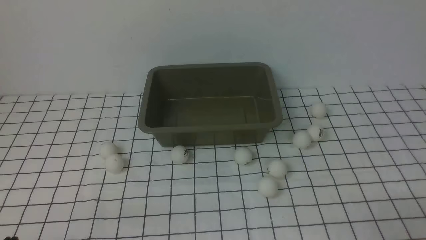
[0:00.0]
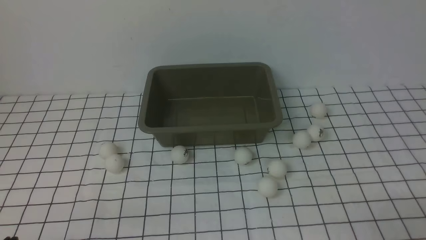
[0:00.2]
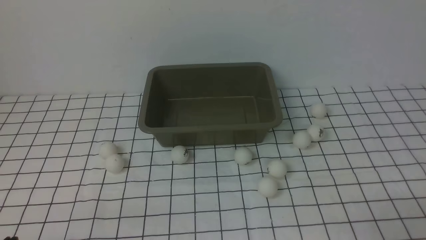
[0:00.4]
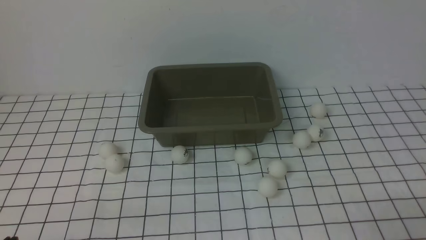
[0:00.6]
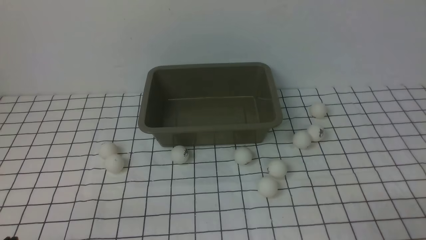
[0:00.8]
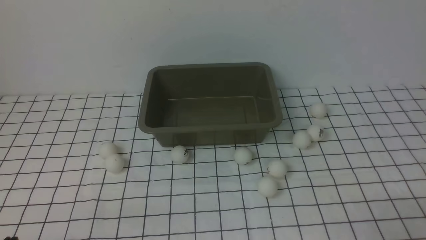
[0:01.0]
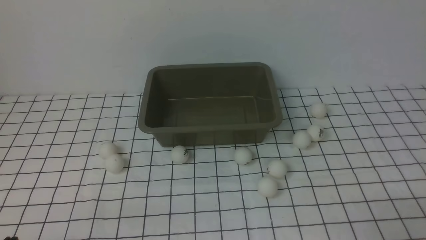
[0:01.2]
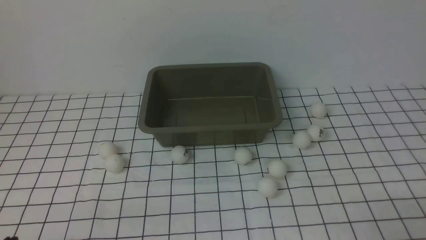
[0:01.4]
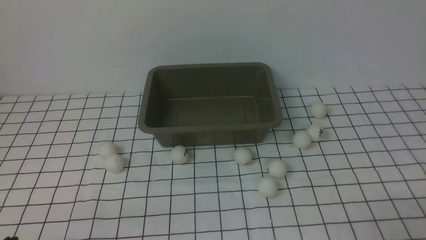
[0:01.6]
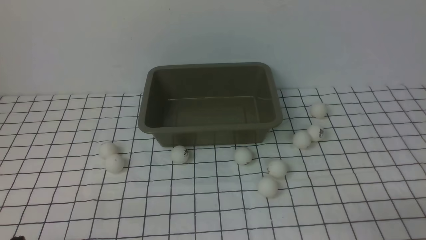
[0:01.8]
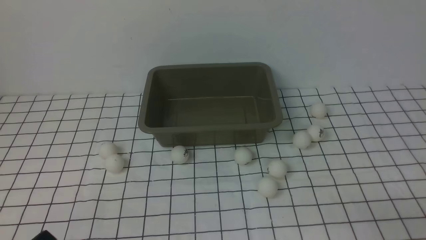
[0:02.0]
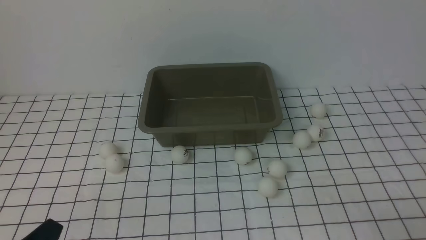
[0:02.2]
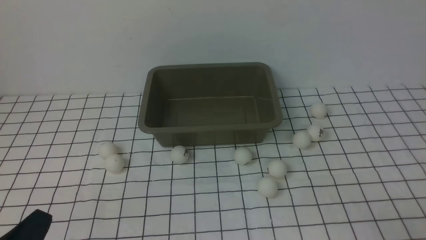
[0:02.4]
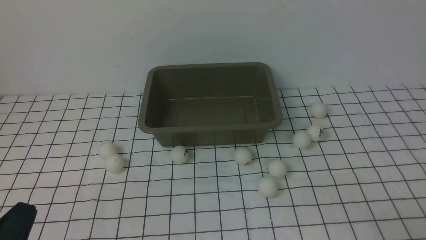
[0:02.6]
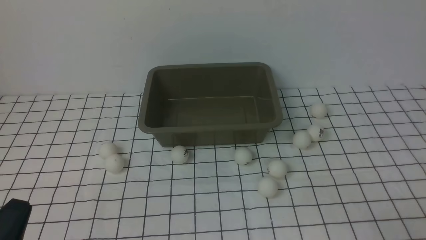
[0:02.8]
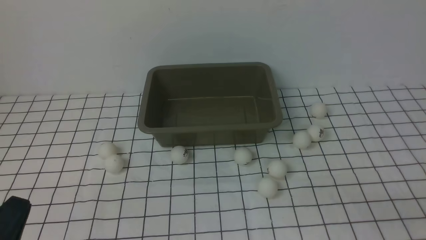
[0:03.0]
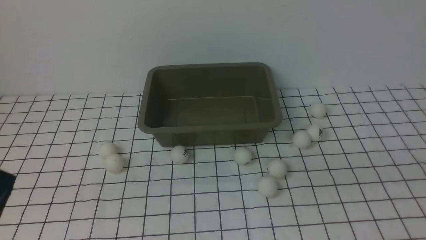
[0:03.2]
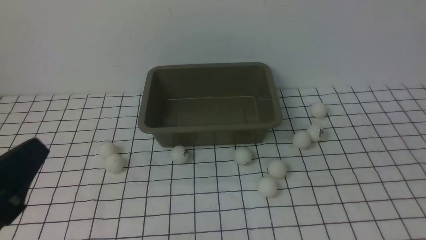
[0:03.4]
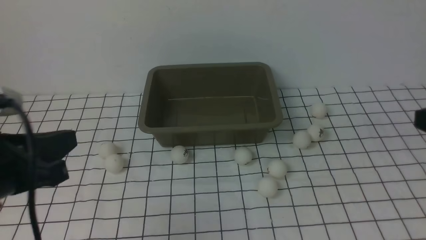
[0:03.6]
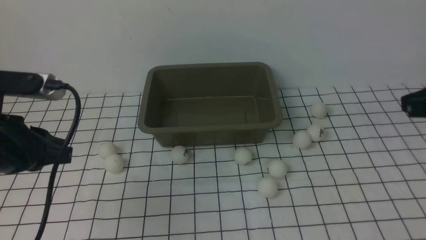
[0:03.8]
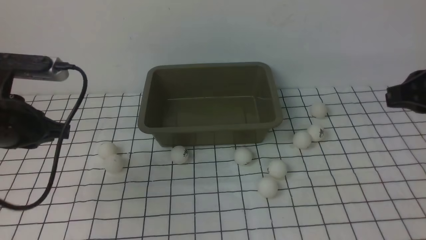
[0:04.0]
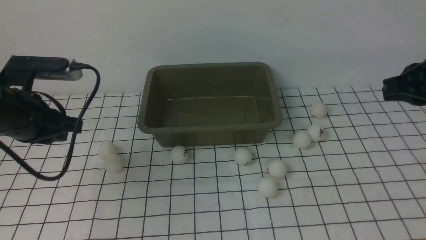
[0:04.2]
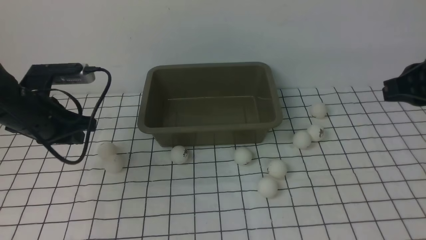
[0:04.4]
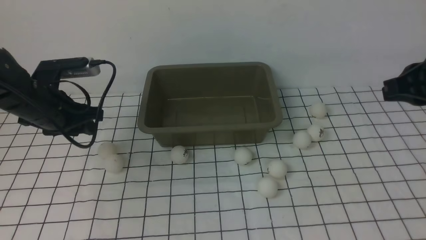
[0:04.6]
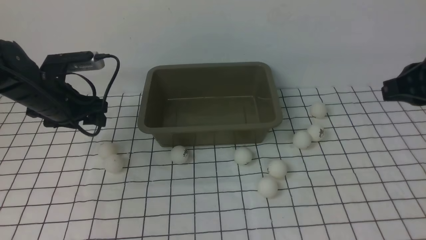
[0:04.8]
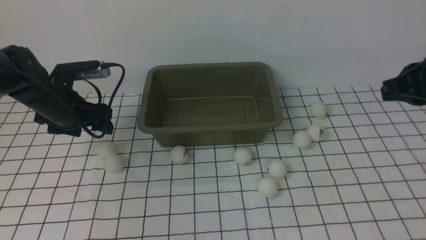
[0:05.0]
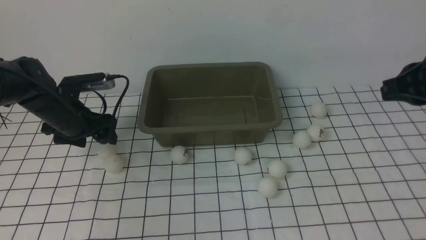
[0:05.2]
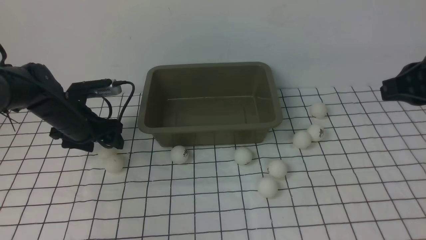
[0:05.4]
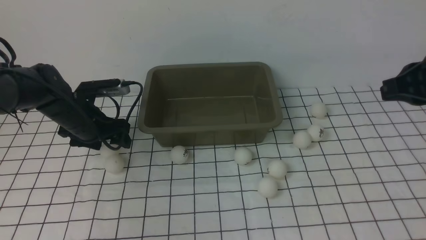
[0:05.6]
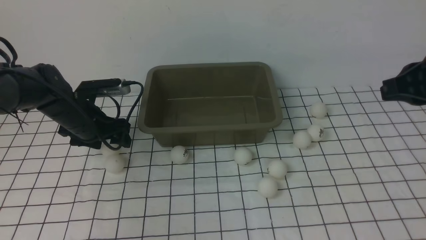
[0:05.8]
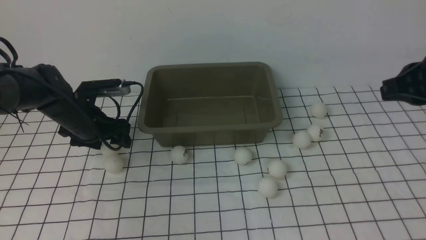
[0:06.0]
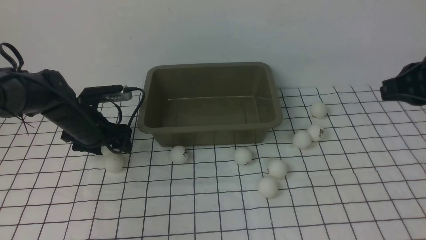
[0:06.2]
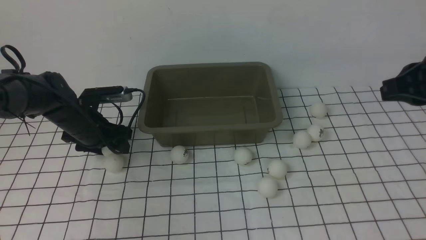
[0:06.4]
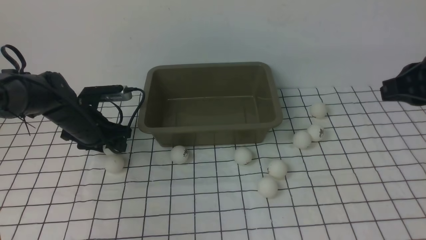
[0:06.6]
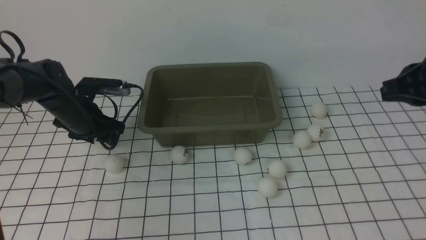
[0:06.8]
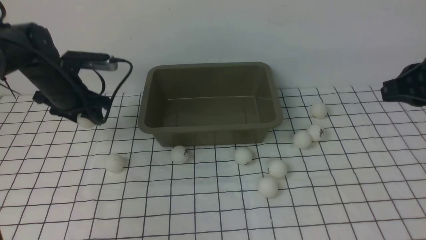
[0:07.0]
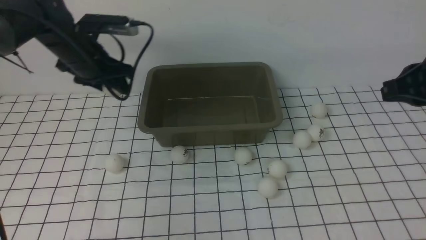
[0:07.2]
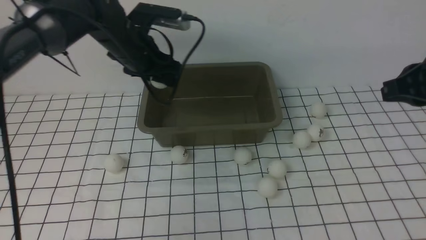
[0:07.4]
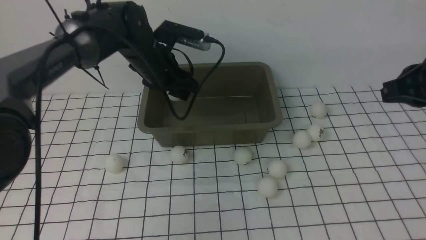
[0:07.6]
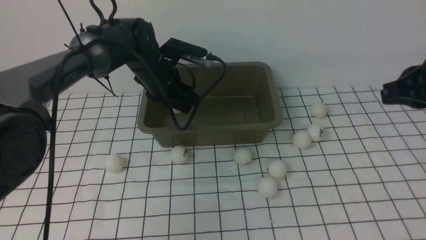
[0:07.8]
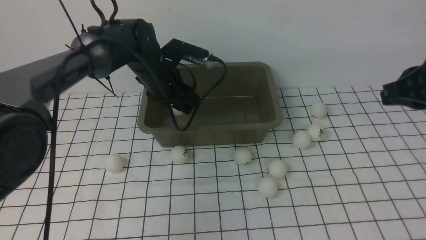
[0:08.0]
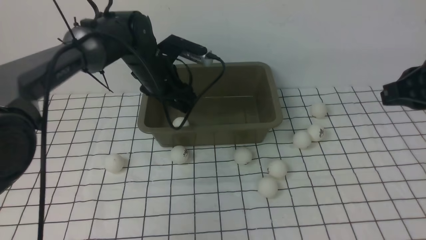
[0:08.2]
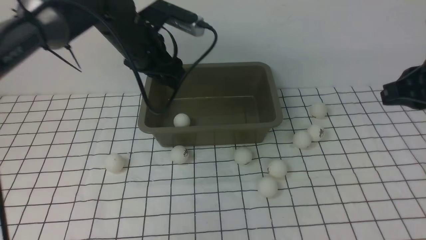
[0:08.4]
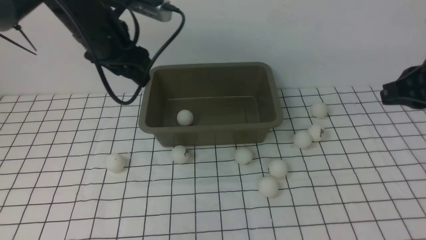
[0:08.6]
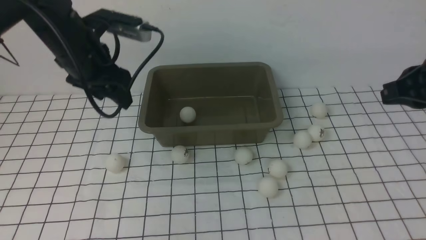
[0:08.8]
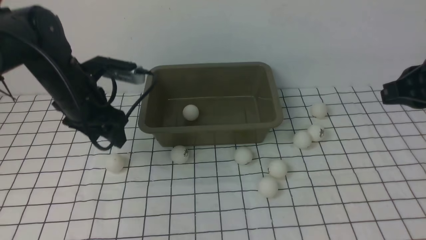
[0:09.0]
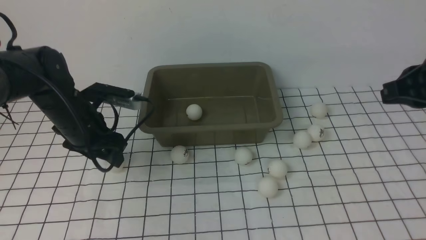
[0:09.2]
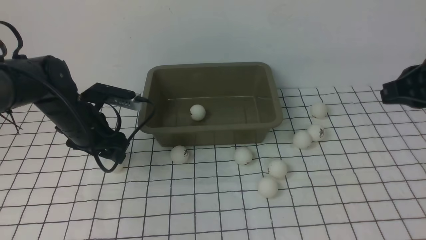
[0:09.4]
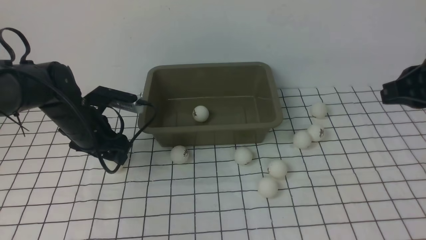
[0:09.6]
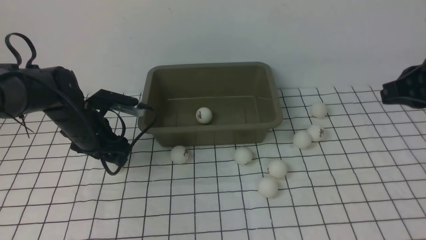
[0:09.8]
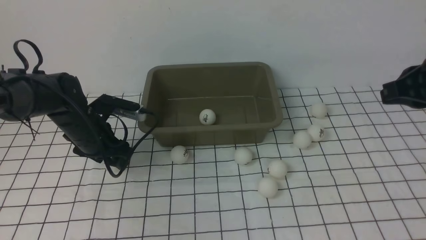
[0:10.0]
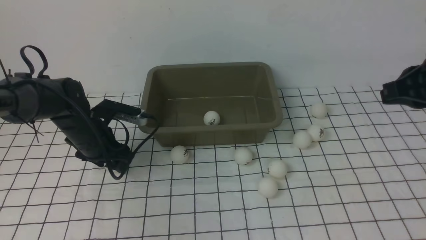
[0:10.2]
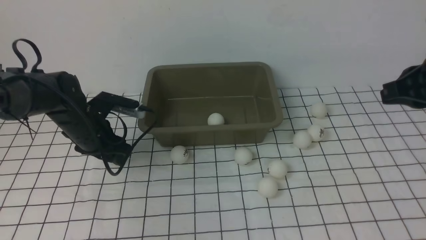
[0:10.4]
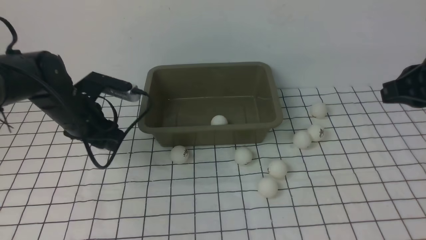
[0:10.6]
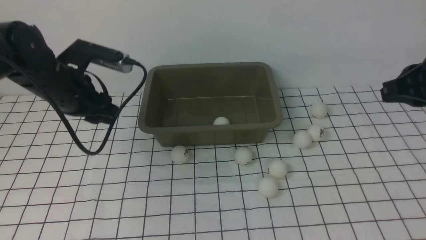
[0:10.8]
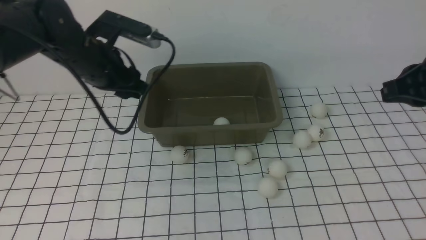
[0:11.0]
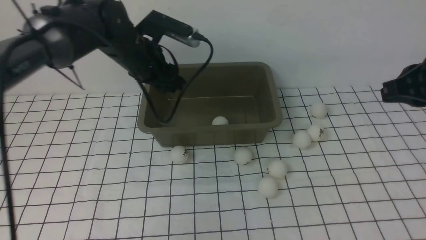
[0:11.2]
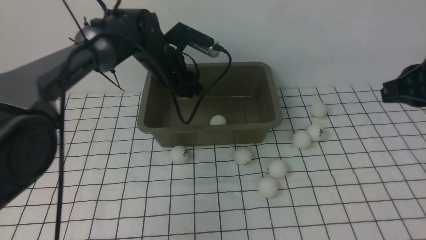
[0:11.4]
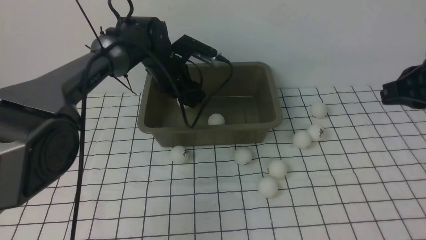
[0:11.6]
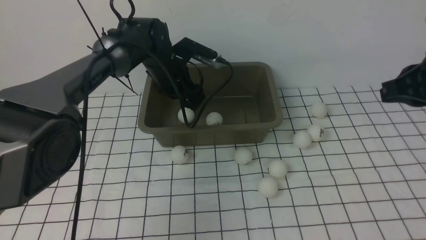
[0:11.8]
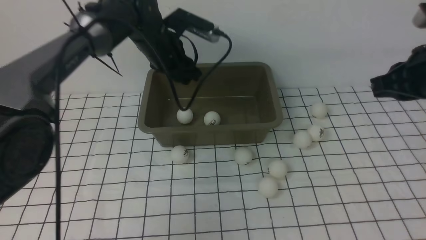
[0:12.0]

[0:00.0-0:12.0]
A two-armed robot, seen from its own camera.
Step, 0:00.0 to 0:07.0: use the left arm to clamp the table tennis ball closest to it.
Step, 0:07.2 to 0:08.2: use the left arm to put the table tennis ball into the box.
Step, 0:08.4 to 0:10.6: use the left arm to clamp the table tennis ball closest to it.
Step, 0:10.8 to 0:11.8: use the left arm to put the table tennis ball into the box.
0:00.0 to 0:01.6: Both grippers stay about where they are.
0:01.6 to 0:03.0: The left gripper travels upward by about 5 cm.
0:03.0 to 0:04.4: The left gripper travels forward by about 25 cm. The right gripper goes roughly 25 cm forward and upward.
0:04.4 to 0:06.0: The left gripper heads downward and forward, covering some 15 cm, and opens its fingers.
0:06.0 to 0:07.6: The left gripper heads to the right and upward, covering roughly 15 cm, and closes.
0:07.6 to 0:09.0: The left gripper goes approximately 15 cm to the left and backward.
0:10.4 to 0:12.0: The right gripper goes roughly 10 cm forward, while the left gripper goes up and down, approximately 15 cm each way, reversing 2 times, and closes its fingers.

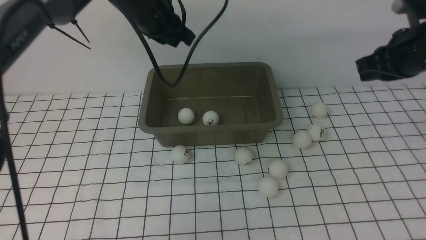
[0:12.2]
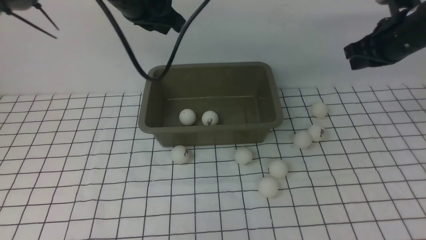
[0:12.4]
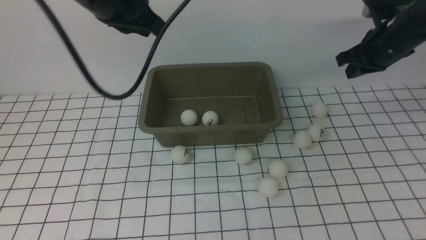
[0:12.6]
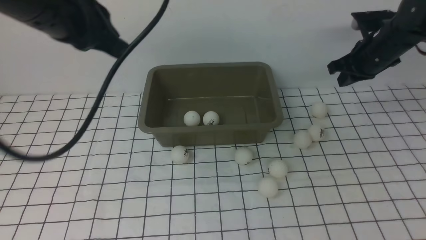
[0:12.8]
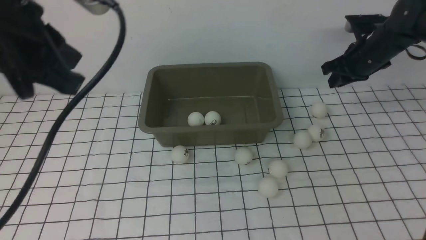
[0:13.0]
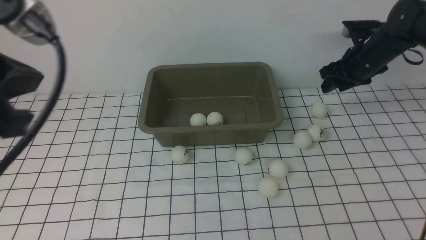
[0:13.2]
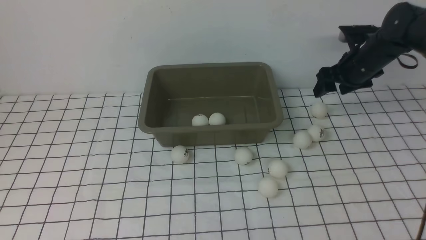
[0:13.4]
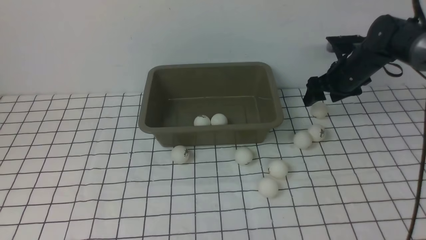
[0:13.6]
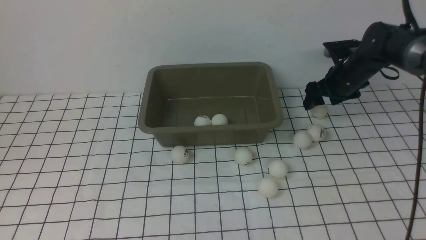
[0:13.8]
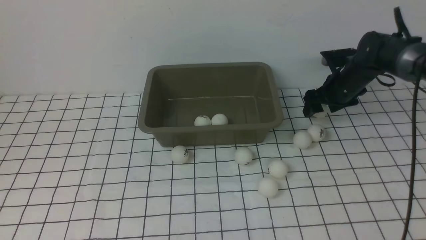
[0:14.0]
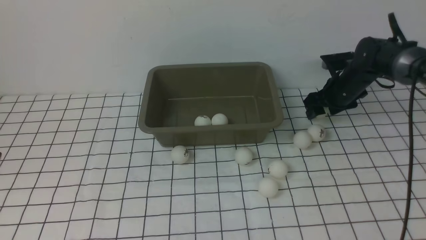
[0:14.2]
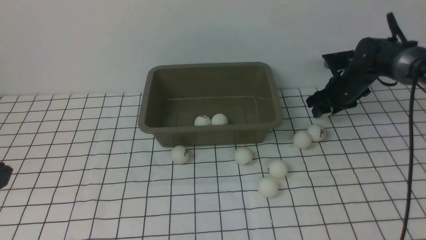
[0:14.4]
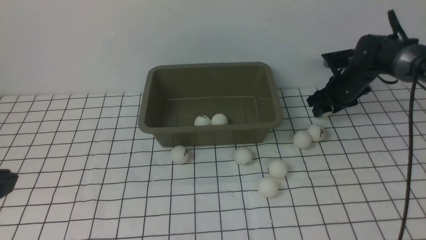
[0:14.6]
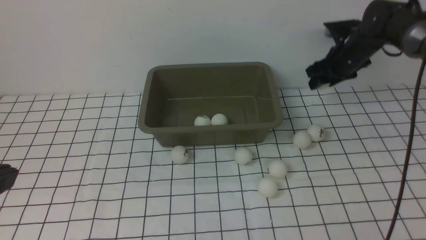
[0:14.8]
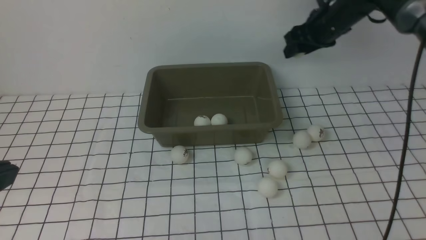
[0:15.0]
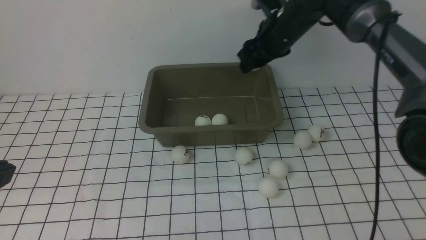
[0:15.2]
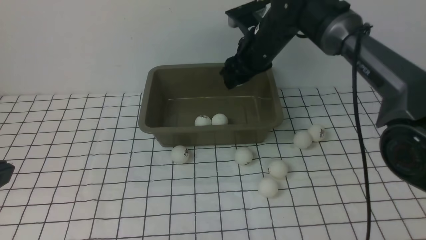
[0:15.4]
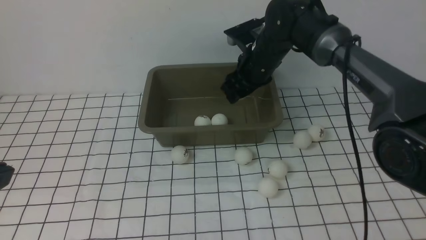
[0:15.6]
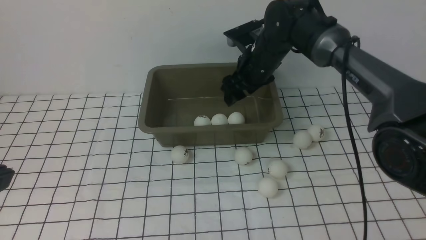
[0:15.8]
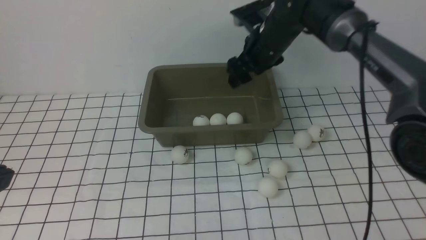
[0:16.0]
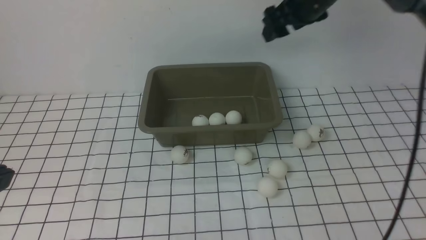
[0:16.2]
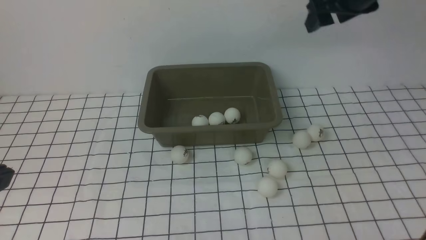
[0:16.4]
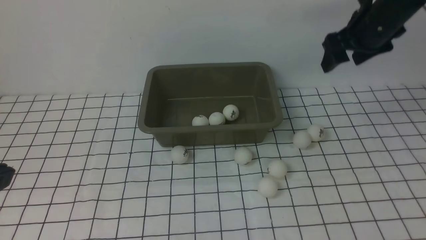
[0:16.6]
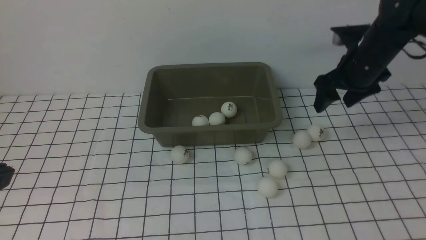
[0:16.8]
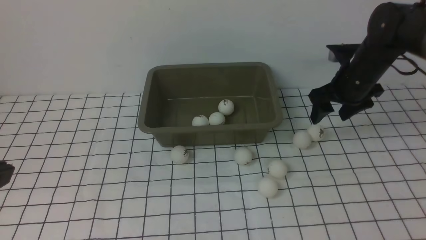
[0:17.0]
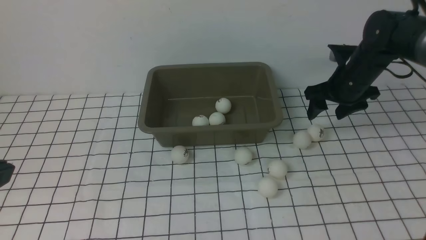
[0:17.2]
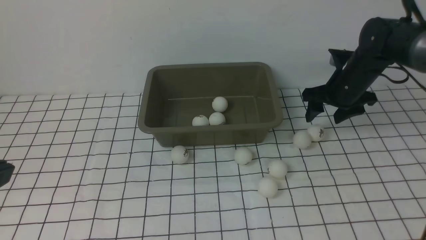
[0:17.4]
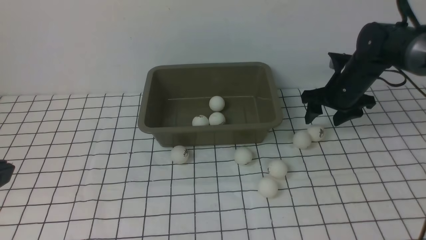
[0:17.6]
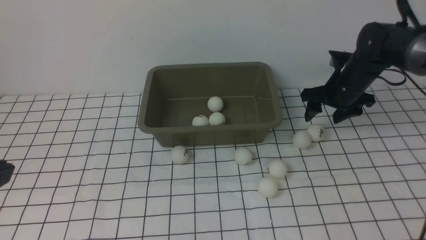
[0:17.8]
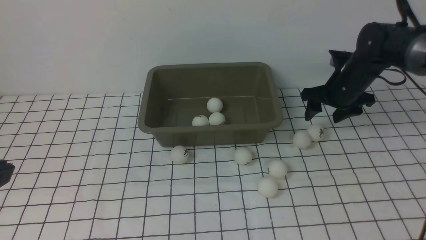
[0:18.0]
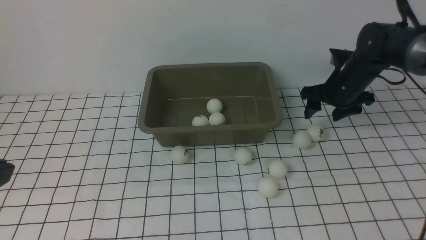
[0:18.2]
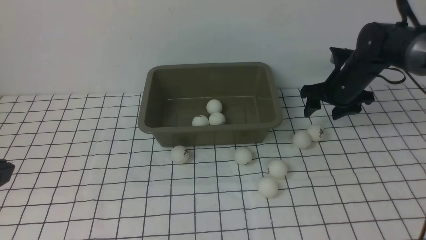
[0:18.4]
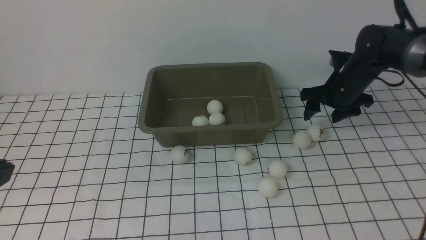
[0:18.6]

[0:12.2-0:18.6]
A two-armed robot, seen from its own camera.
Step, 0:12.2 to 0:14.8: use the right arm to clamp the table tennis ball closest to it.
Step, 0:15.0 to 0:15.8: use the right arm to put the table tennis ball into the box.
0:12.2 to 0:13.8: The right gripper heads downward and forward, covering some 20 cm, and opens up. Meanwhile the left gripper moves backward, about 30 cm.
0:13.8 to 0:15.4: The right gripper travels to the left and upward by approximately 20 cm.
0:15.4 to 0:17.0: The right gripper goes some 15 cm to the right.
0:17.0 to 0:18.6: The grippers move only a little.
